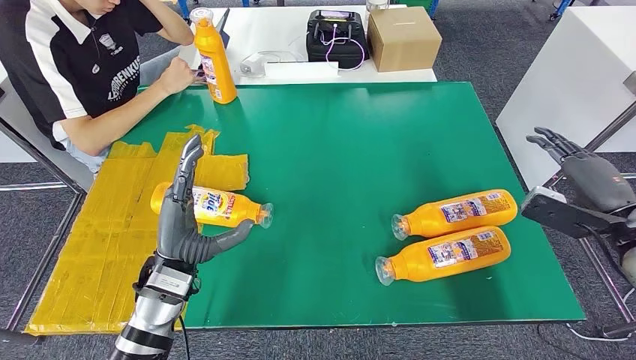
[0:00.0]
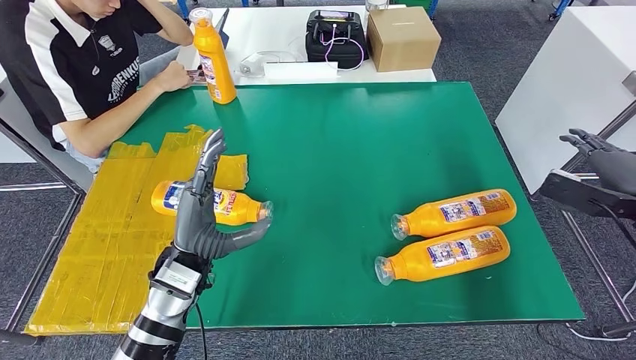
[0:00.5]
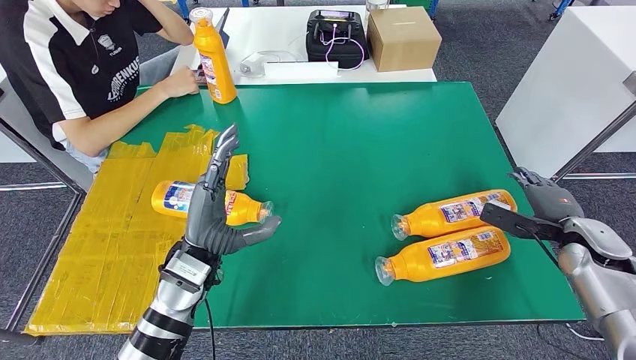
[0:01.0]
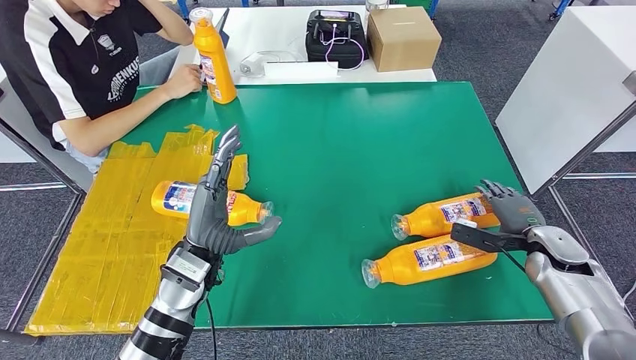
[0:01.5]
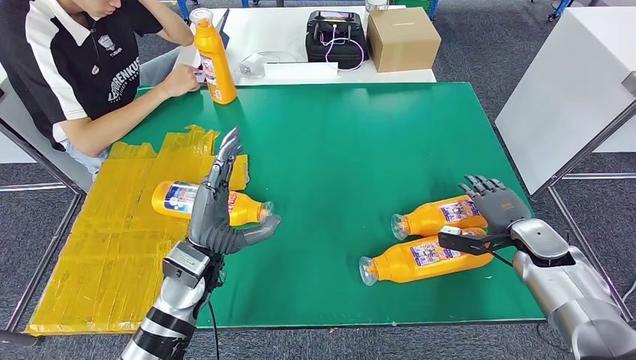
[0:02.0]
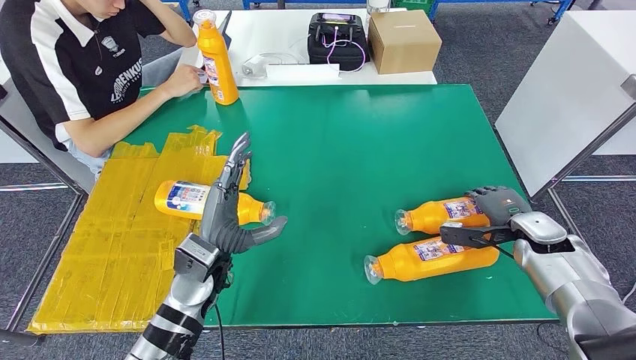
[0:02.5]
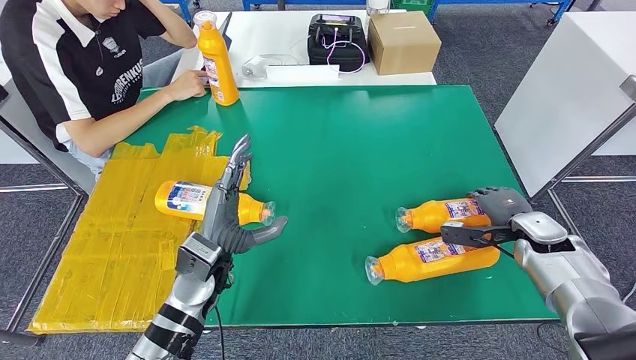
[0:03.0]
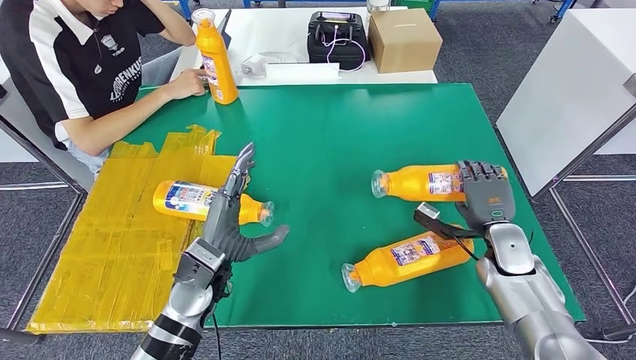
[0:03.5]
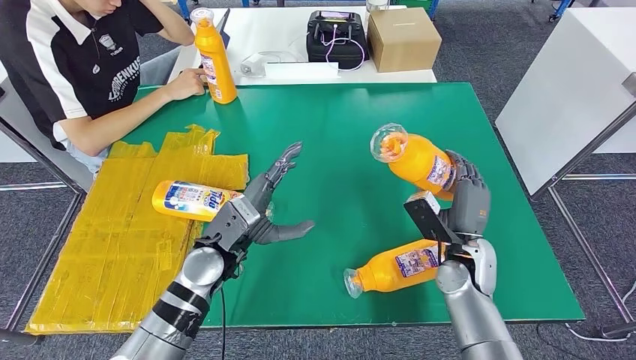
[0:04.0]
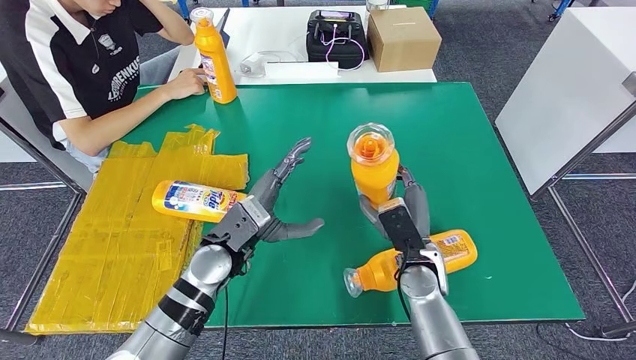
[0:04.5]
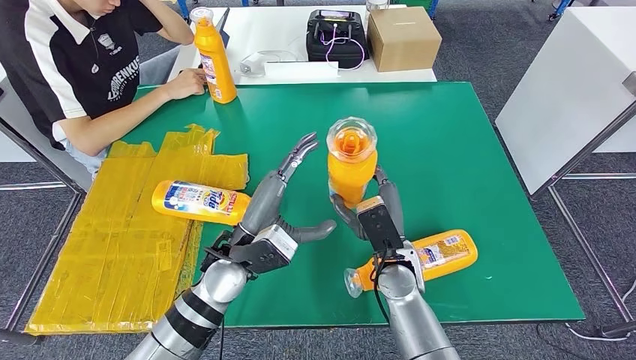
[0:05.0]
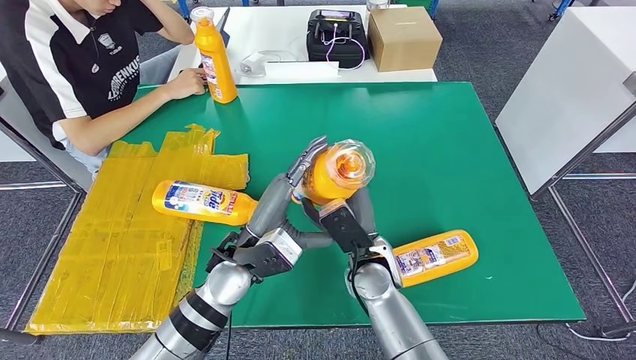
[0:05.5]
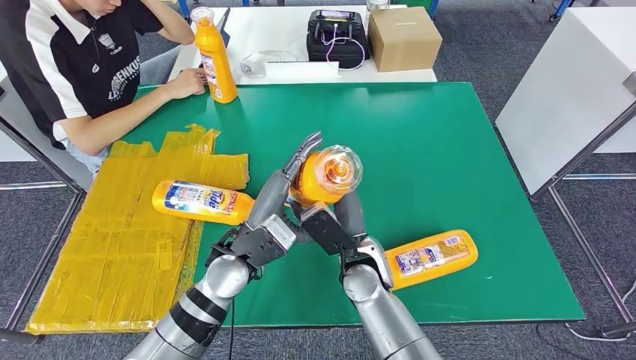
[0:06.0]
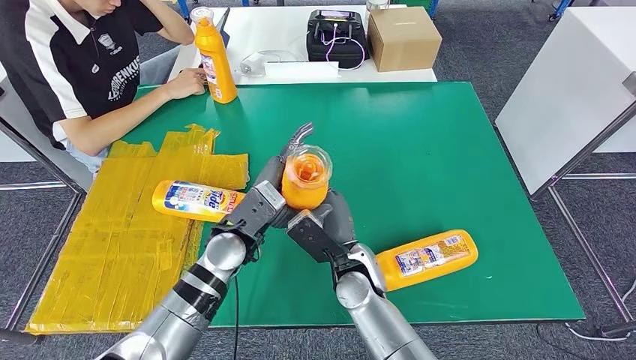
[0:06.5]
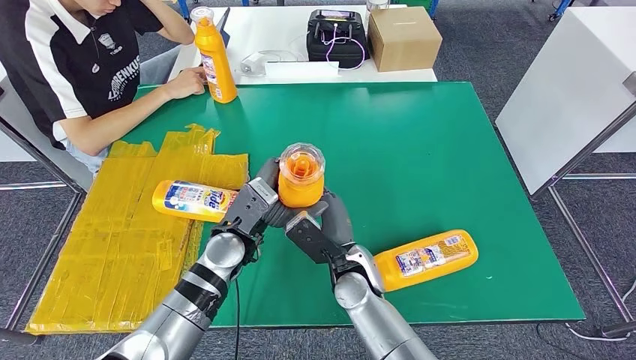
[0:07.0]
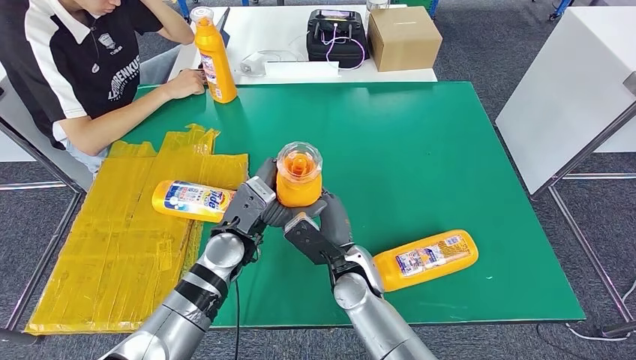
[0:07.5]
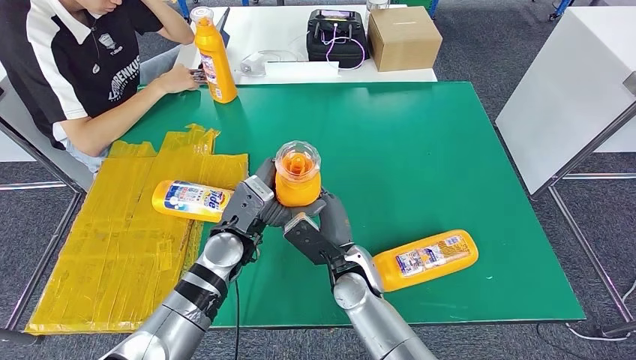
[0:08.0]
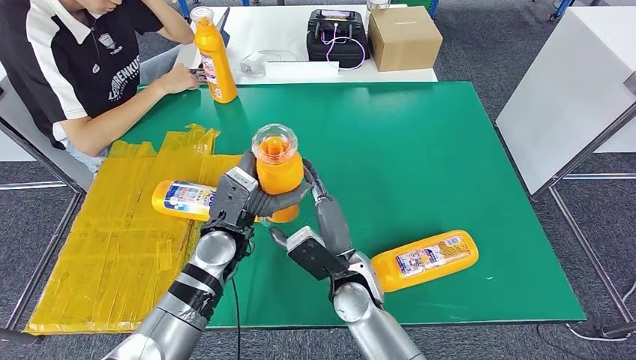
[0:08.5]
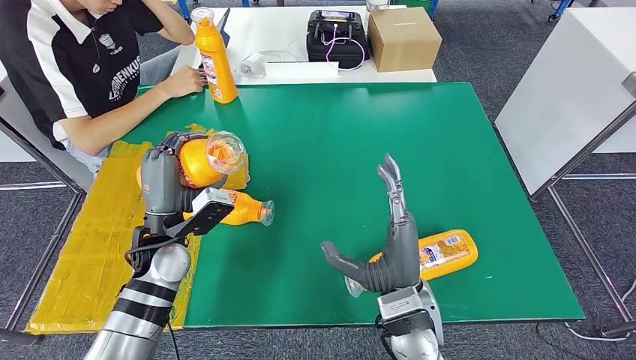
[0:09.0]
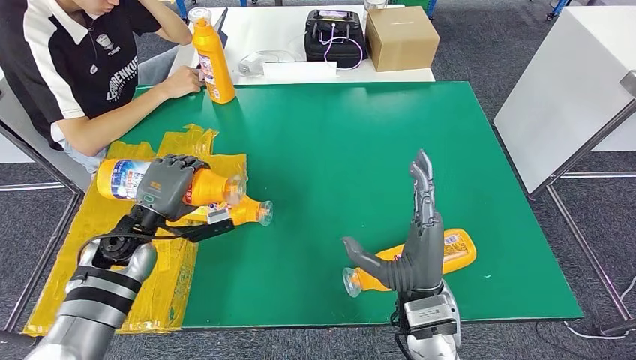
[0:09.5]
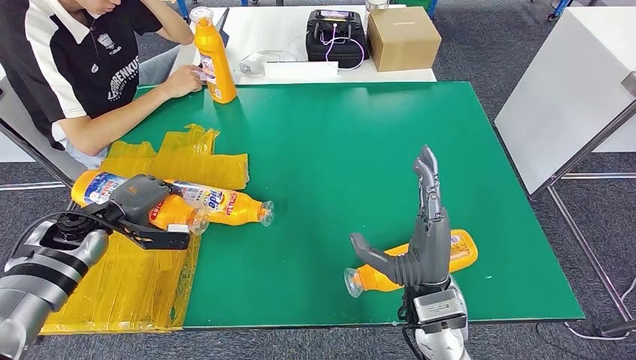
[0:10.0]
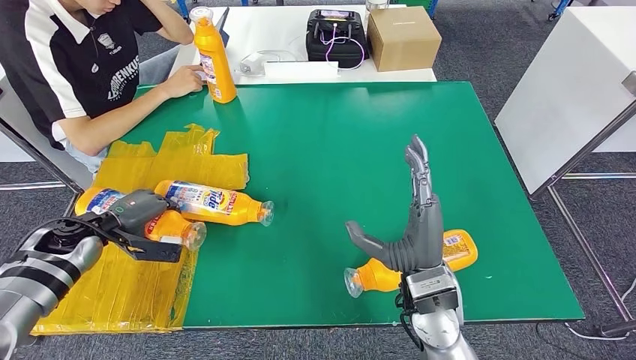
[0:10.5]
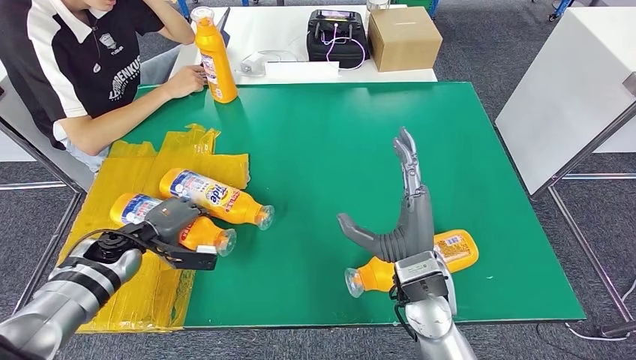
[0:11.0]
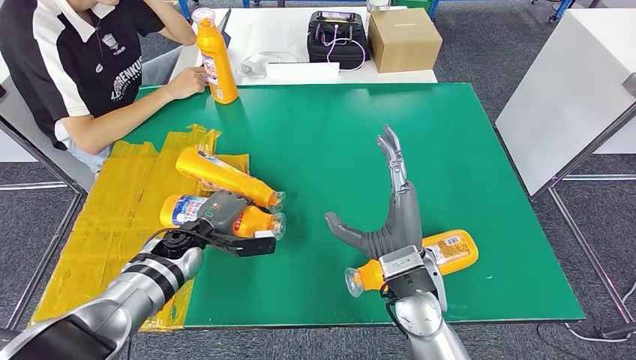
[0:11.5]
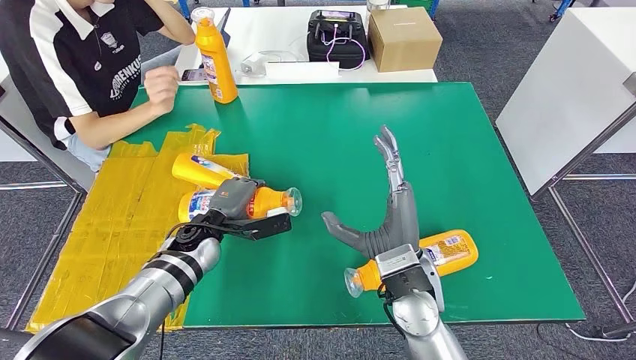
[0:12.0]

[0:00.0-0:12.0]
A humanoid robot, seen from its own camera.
Step, 0:00.0 to 0:04.5: Pick up the fast-moving consumer goods bottle from the table.
0:00.0 to 0:02.0: The right hand goes approximately 15 cm downward and forward.
0:02.0 to 0:04.0: The right hand goes approximately 15 cm to the left.
0:04.0 to 0:06.0: The left hand ends up approximately 5 cm from where it was. The right hand moves to the left, some 20 cm.
0:06.0 to 0:08.0: The hands make only small movements.

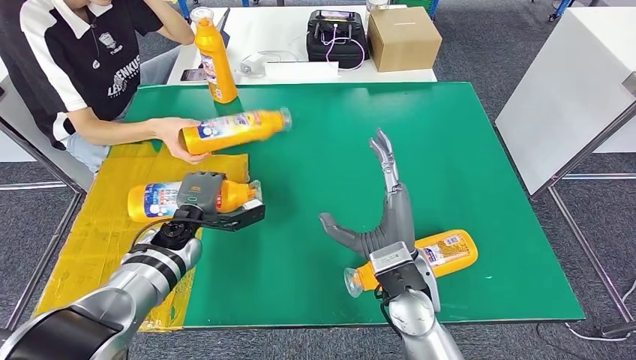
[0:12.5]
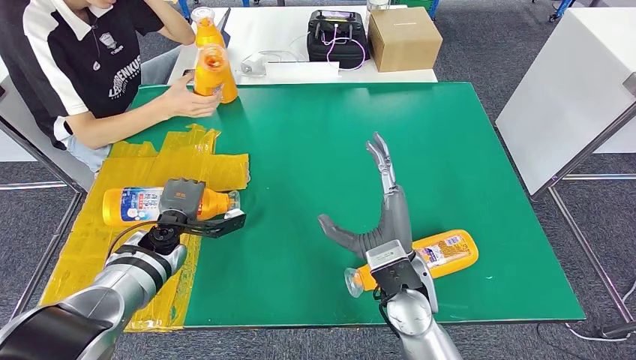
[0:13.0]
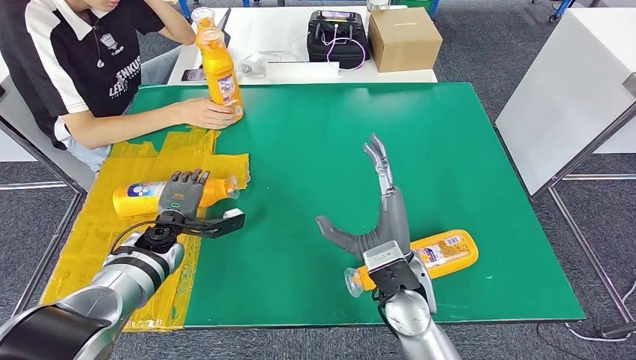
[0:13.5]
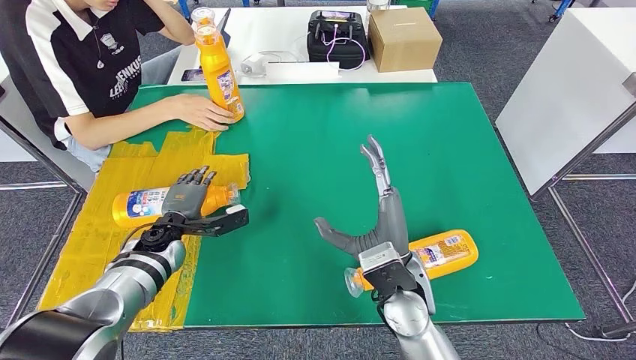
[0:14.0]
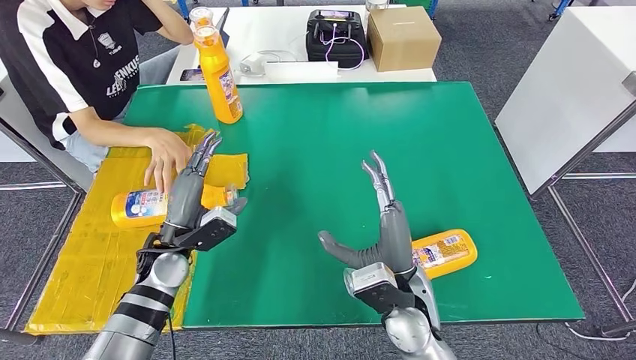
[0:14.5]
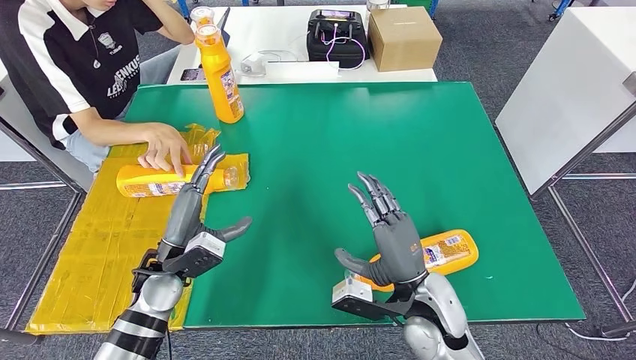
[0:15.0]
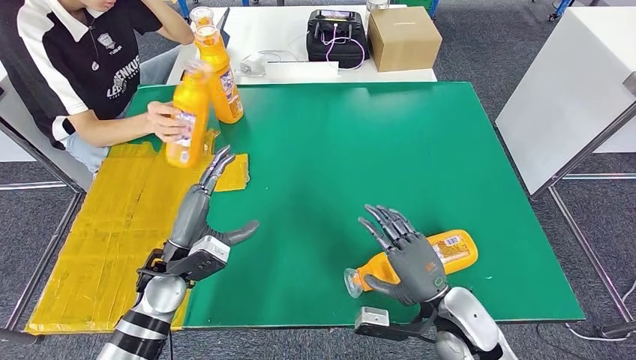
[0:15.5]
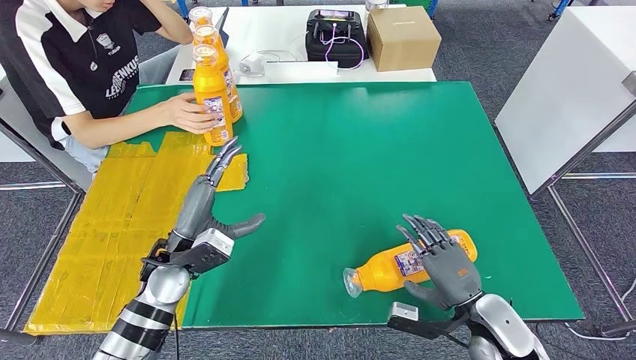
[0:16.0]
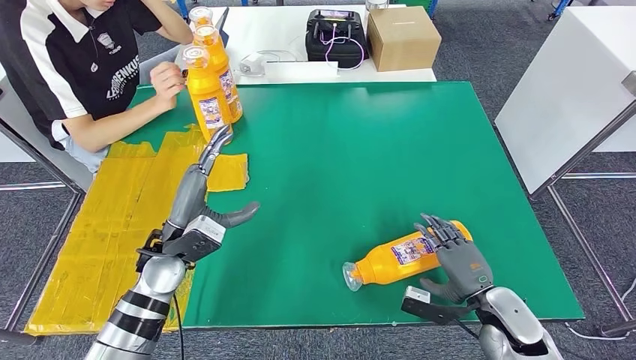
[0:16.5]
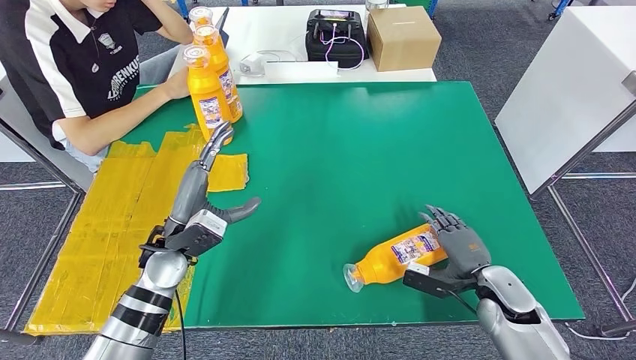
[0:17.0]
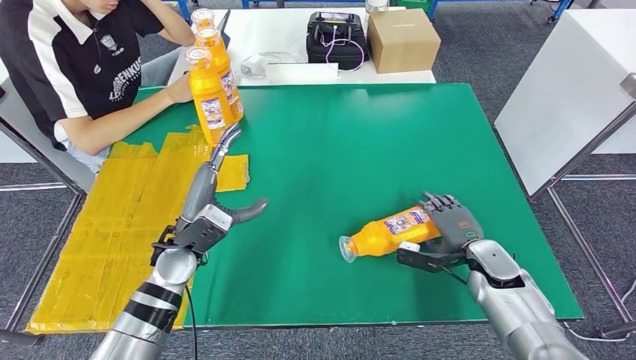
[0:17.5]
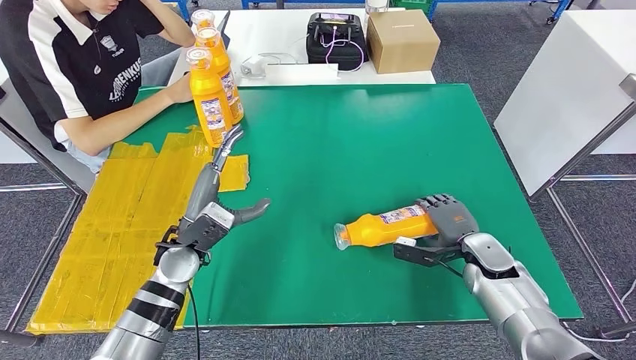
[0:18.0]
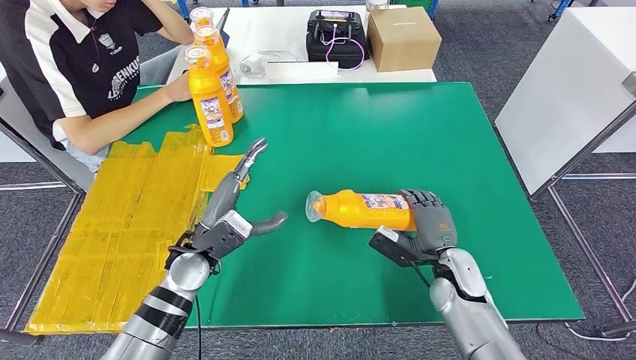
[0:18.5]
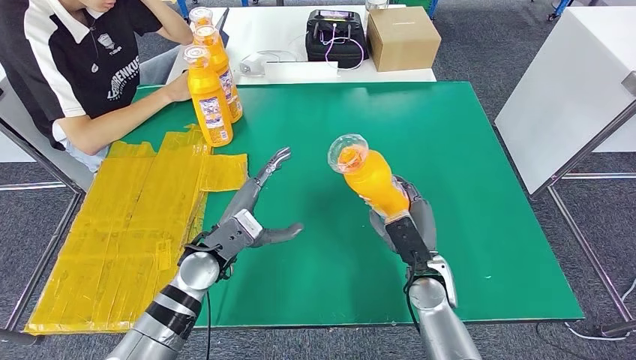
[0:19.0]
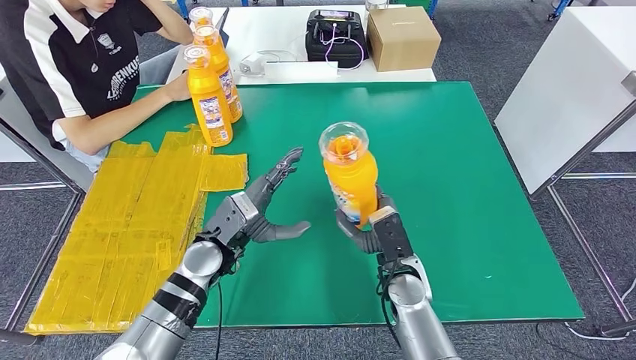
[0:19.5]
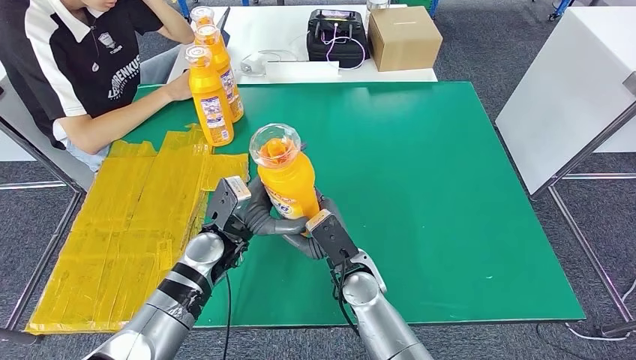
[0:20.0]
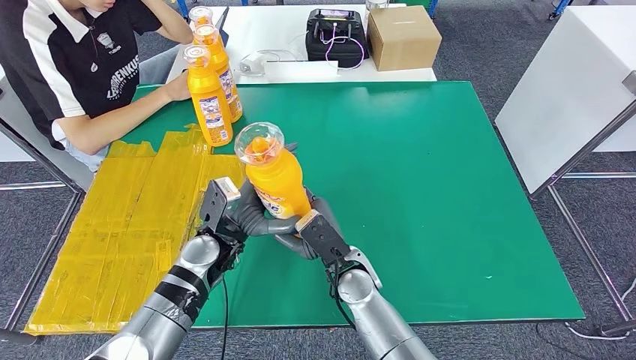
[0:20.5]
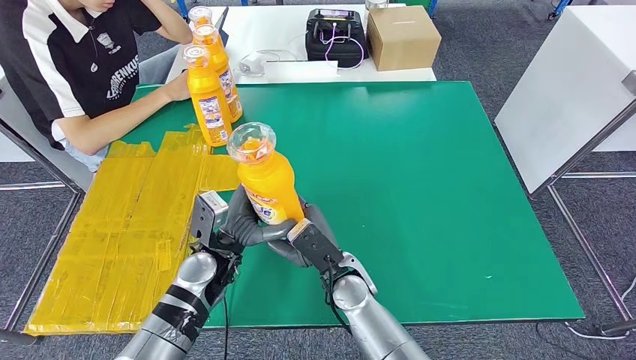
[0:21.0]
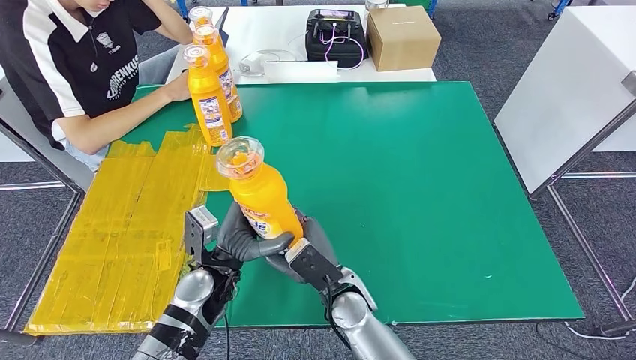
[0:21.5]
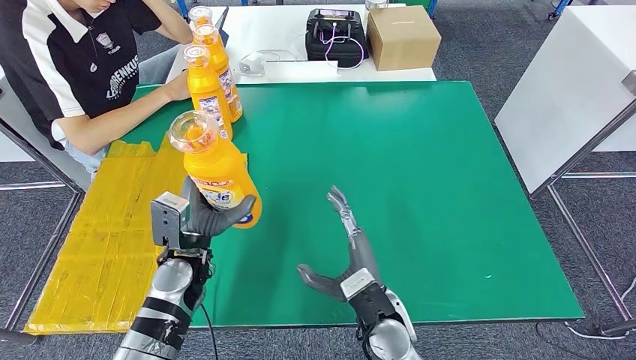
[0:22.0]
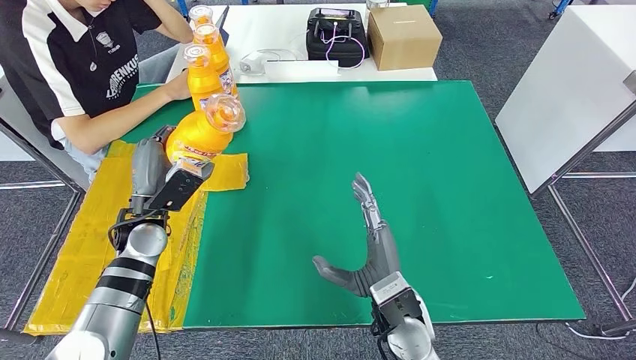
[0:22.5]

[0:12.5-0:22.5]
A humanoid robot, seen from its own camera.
Step, 0:14.0 to 0:19.5: Pick up the fast-moving consumer goods bottle from the table.
0:12.5 to 0:14.5: The left hand moves backward, approximately 5 cm.
0:14.5 to 0:16.5: The right hand shifts roughly 20 cm to the right and downward.
0:16.5 to 0:18.5: The right hand moves forward and to the left, roughly 10 cm.
0:18.5 to 0:20.5: The right hand moves to the left, some 20 cm.
0:20.5 to 0:22.5: The right hand heads to the right and backward, covering roughly 10 cm, while the left hand is displaced to the left by roughly 15 cm.
